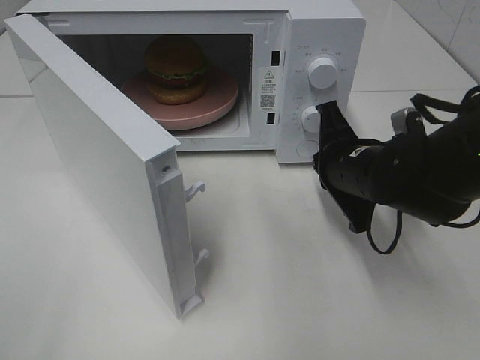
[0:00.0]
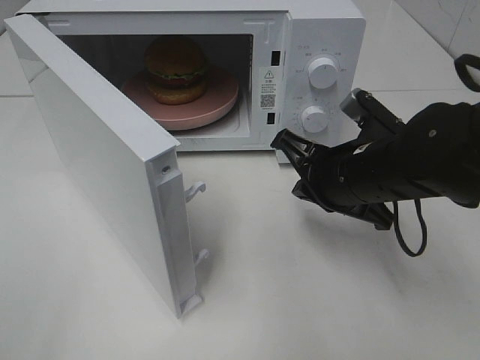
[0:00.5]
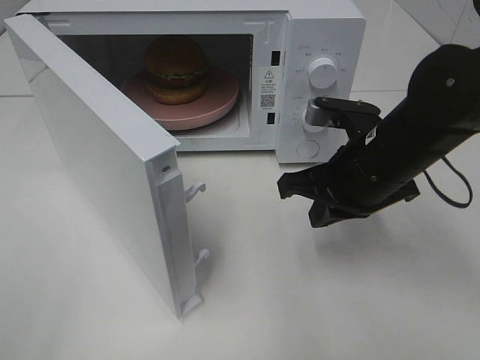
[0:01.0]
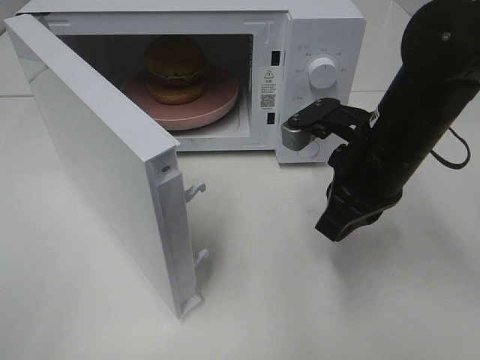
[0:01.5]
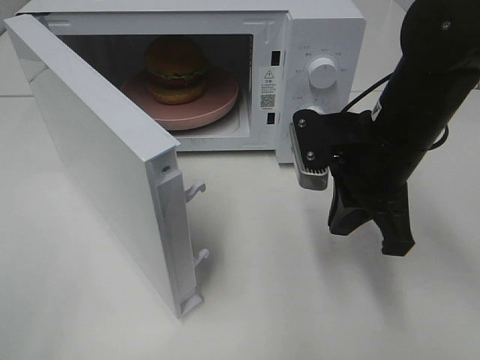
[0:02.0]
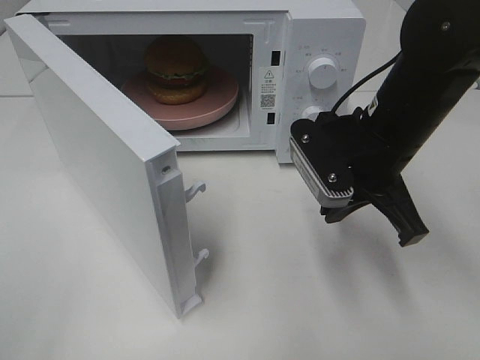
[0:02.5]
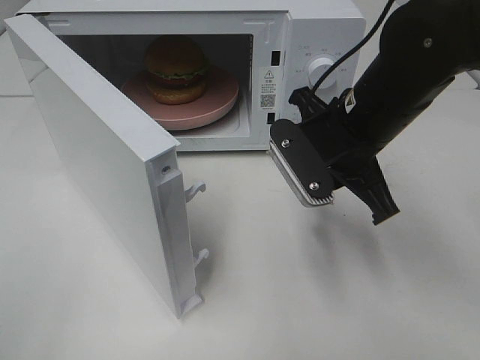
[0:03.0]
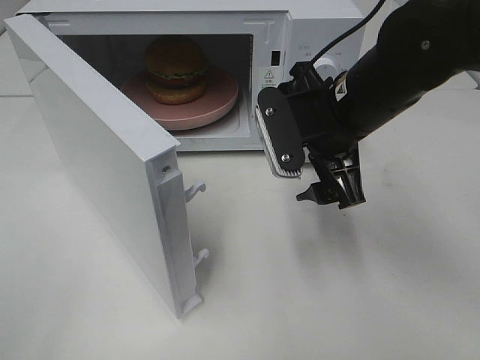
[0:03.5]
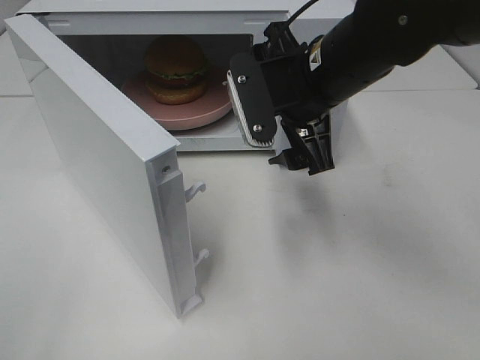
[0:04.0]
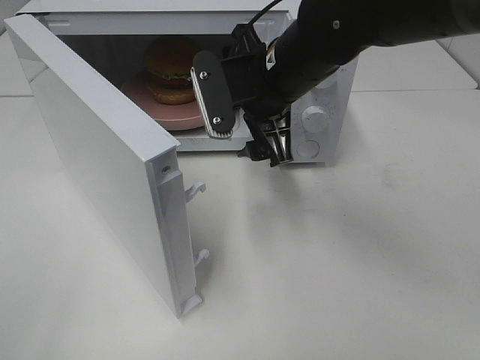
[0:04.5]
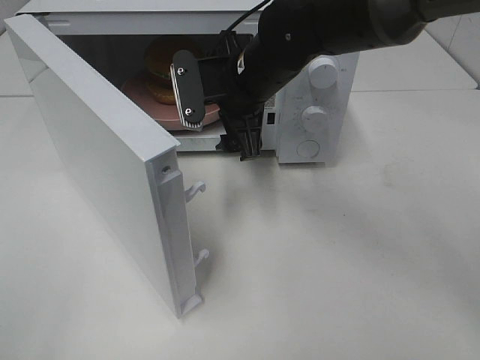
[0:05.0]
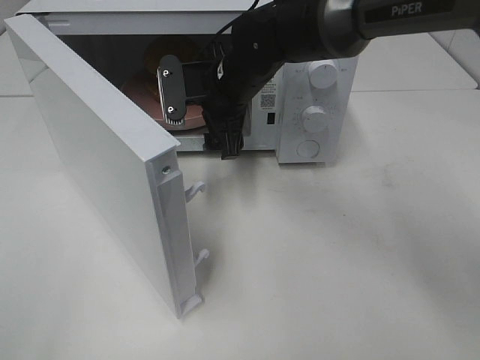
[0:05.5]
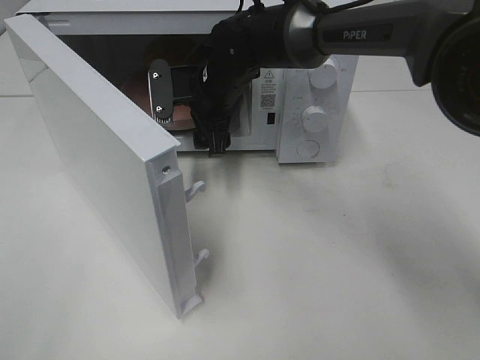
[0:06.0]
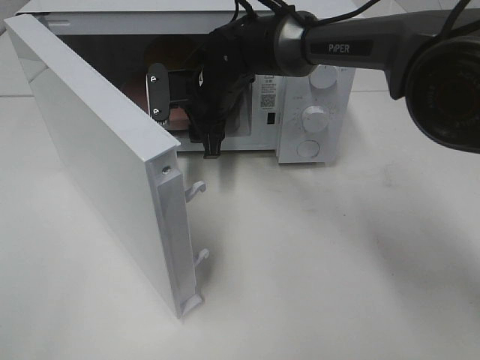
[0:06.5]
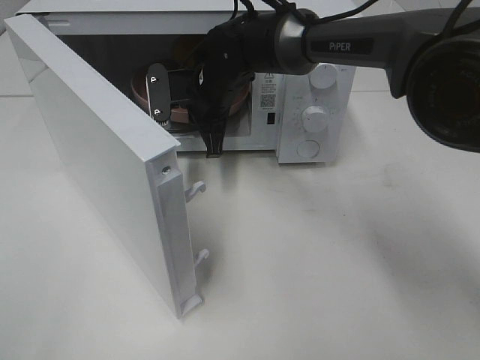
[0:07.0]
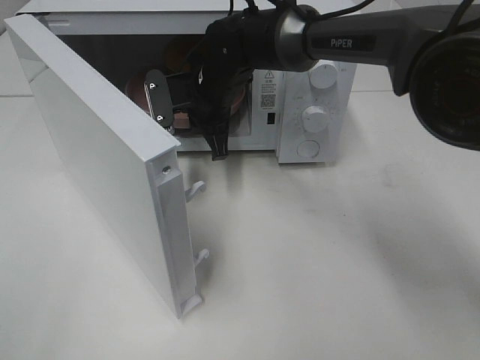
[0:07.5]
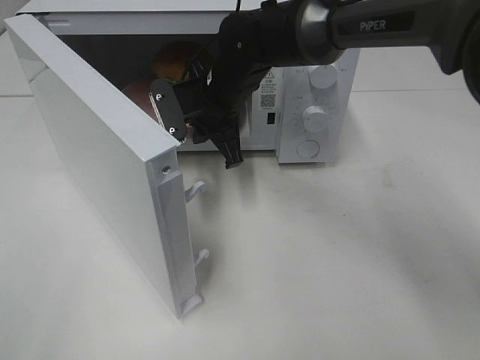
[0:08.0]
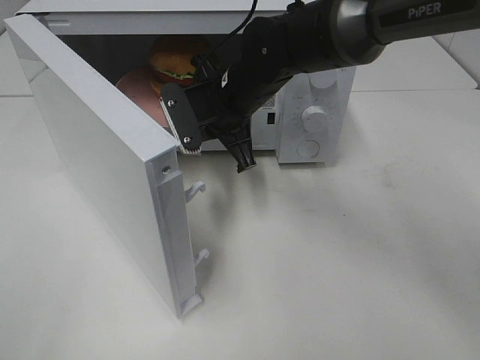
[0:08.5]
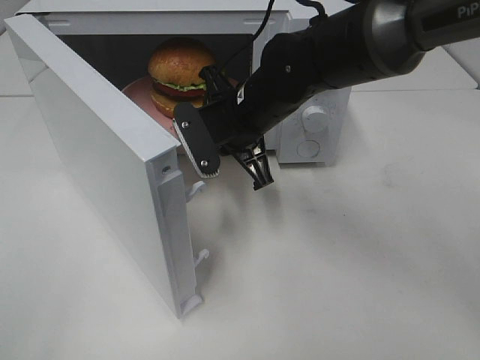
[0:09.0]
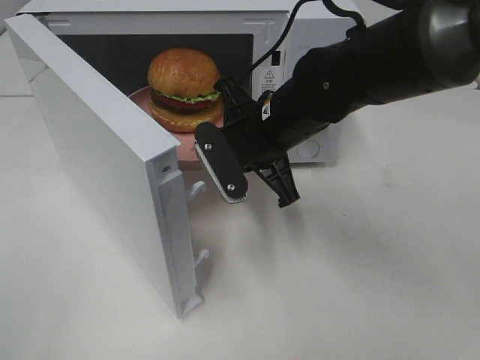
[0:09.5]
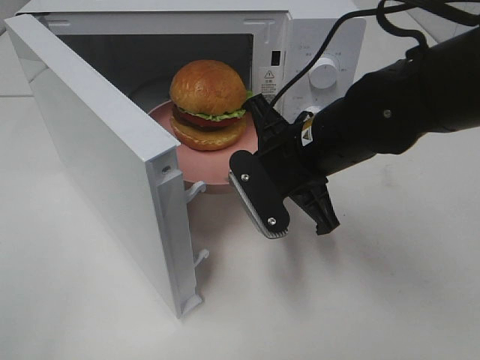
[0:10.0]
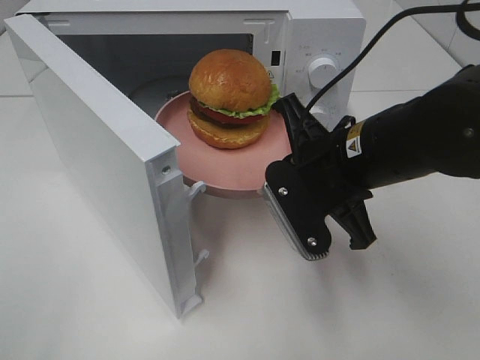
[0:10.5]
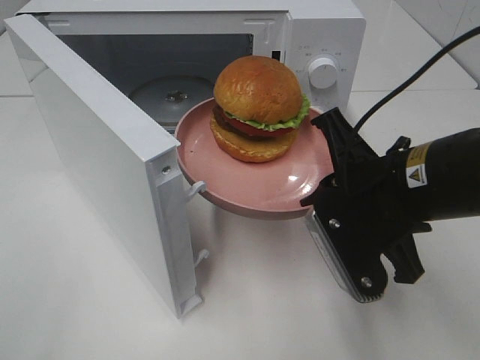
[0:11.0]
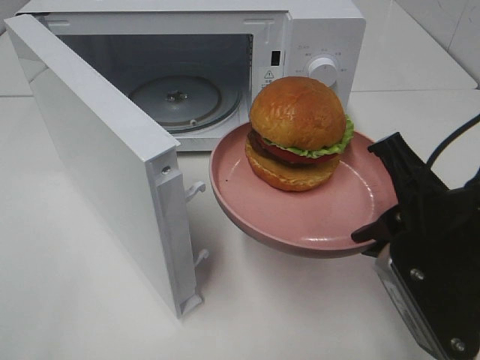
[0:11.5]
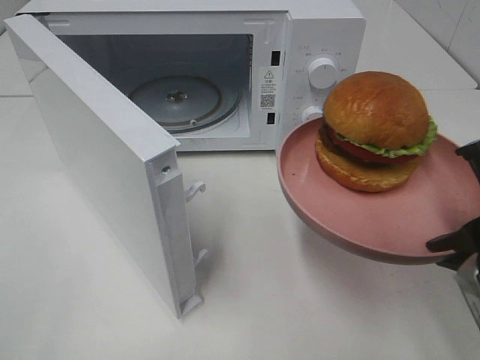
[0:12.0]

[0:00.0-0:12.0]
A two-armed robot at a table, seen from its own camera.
Task of the whole recording: Heat the burger.
Step, 0:00.0 to 0:06.5: Right hand: grab the plate with the hamburger.
0:00.0 to 0:02.0: The right gripper heads upward, covering roughly 5 cm.
0:02.0 to 0:04.0: The right gripper moves to the left, about 5 cm, and opens up.
0:04.0 to 0:06.0: The right gripper goes about 20 cm forward, to the left and downward.
0:06.0 to 0:08.0: The right gripper closes its fingers.
0:08.0 to 0:10.0: The right gripper moves backward and to the right, about 15 cm.
0:10.0 to 0:12.0: The right gripper shifts about 20 cm backward and to the right.

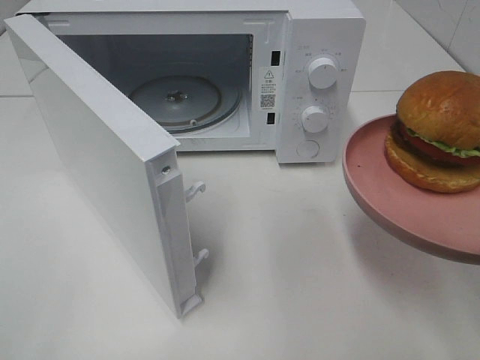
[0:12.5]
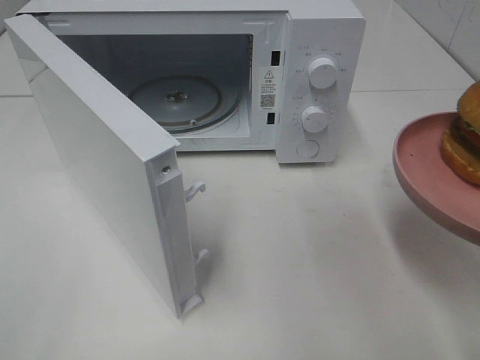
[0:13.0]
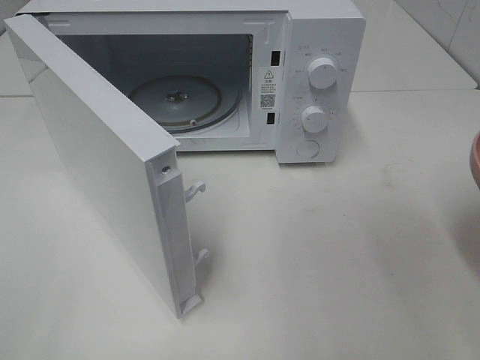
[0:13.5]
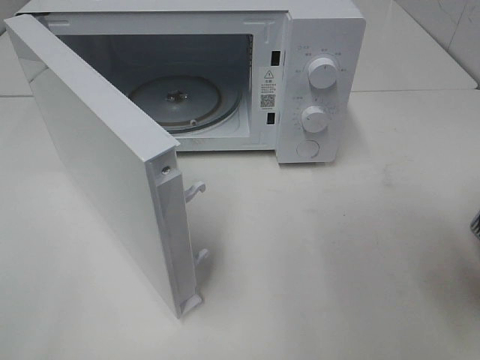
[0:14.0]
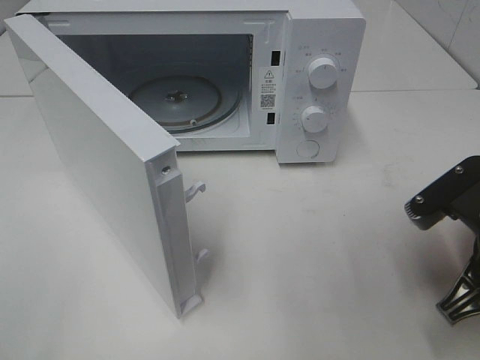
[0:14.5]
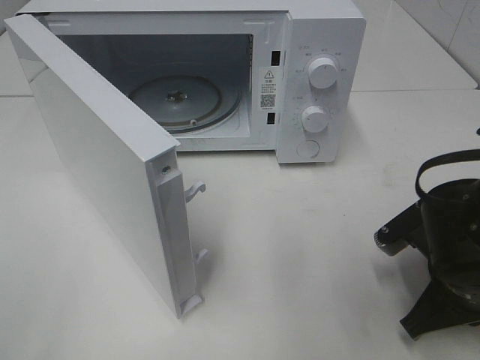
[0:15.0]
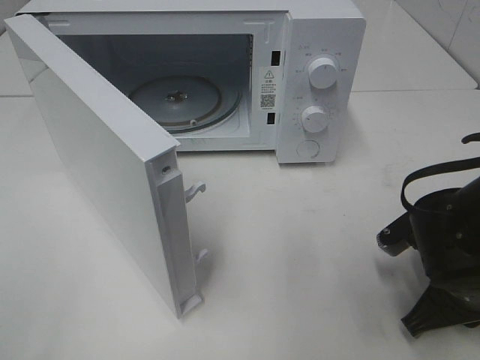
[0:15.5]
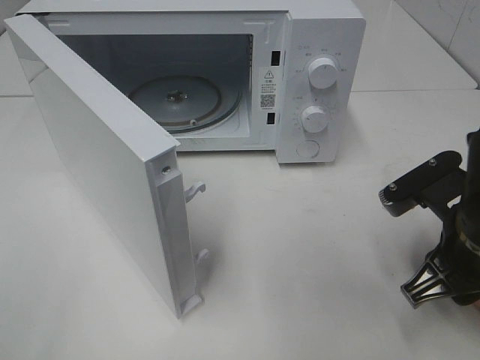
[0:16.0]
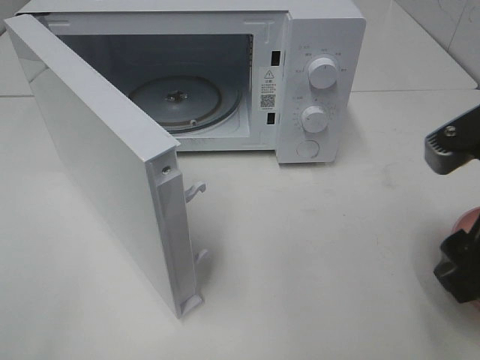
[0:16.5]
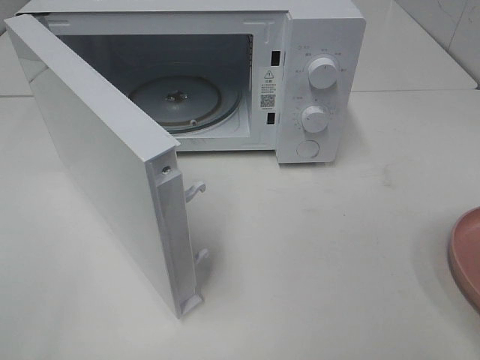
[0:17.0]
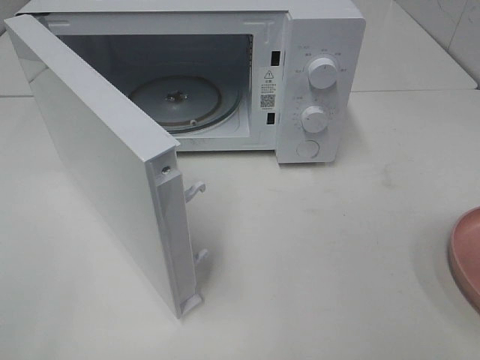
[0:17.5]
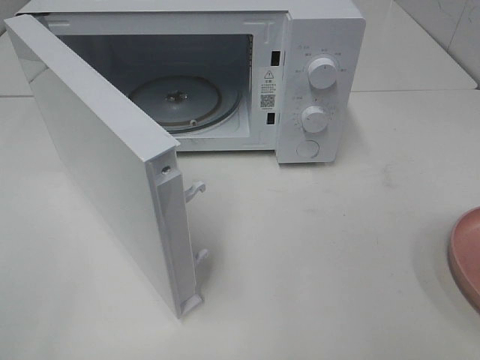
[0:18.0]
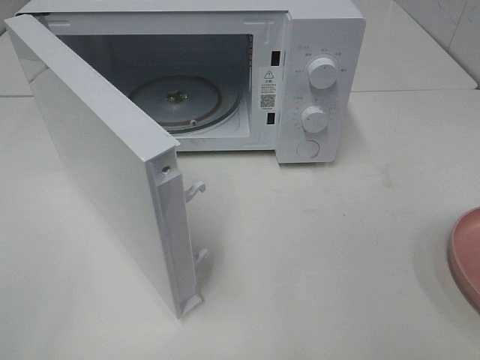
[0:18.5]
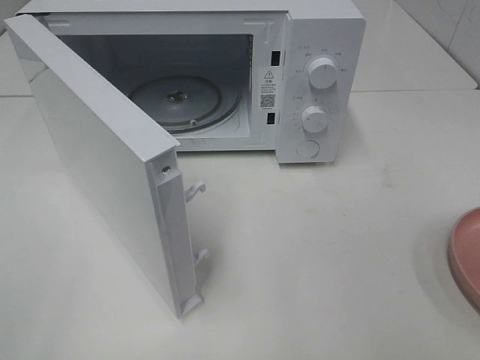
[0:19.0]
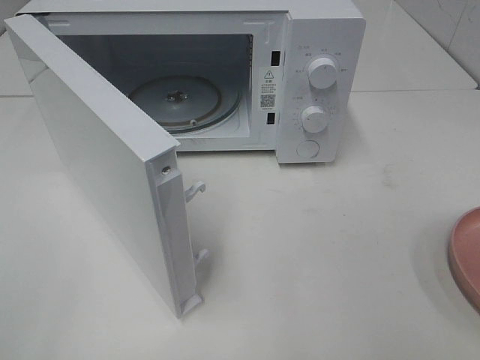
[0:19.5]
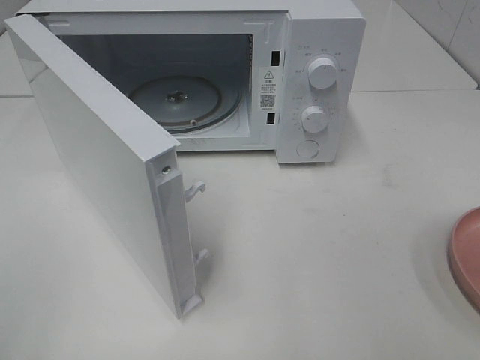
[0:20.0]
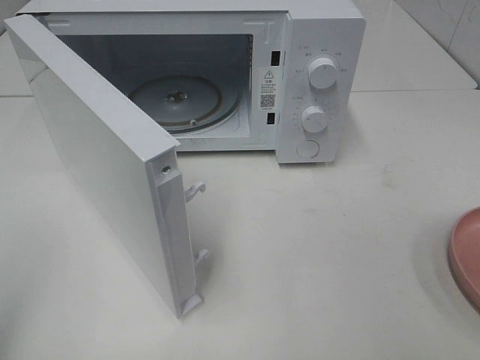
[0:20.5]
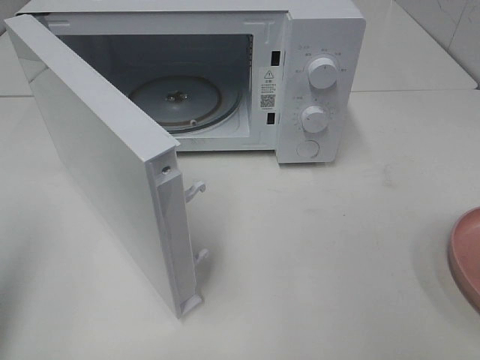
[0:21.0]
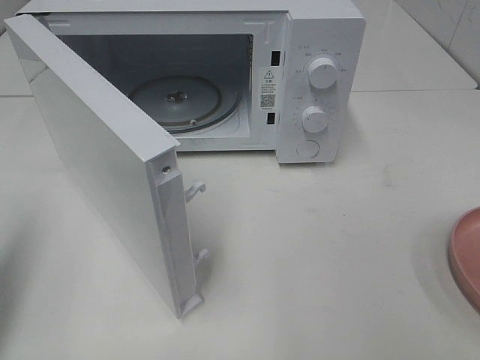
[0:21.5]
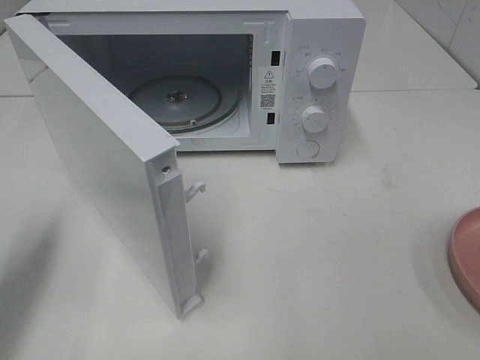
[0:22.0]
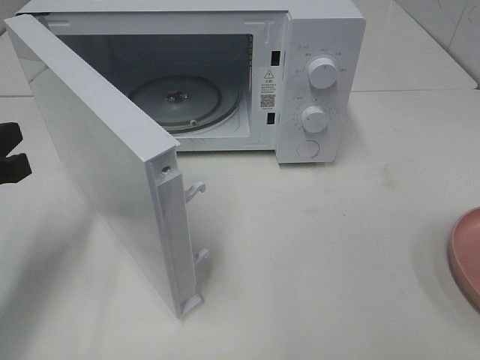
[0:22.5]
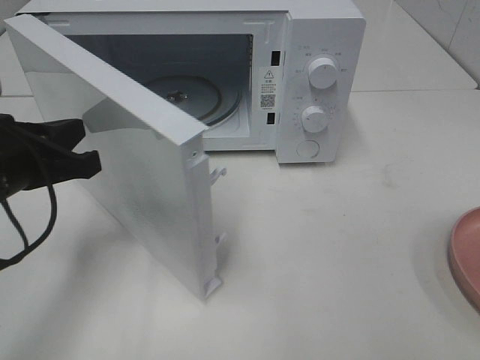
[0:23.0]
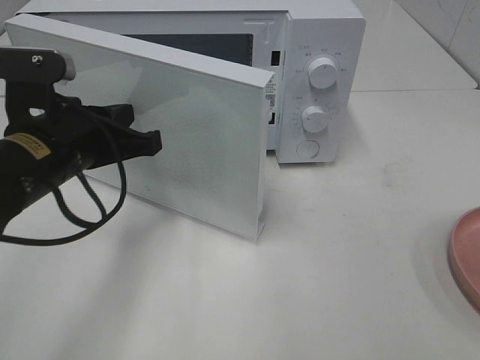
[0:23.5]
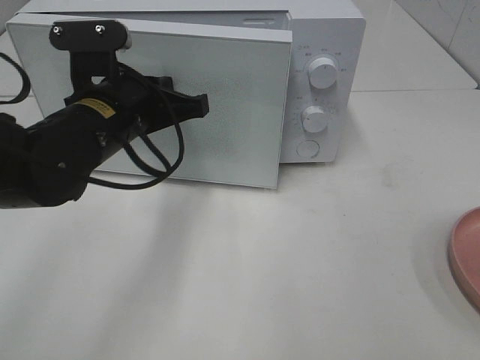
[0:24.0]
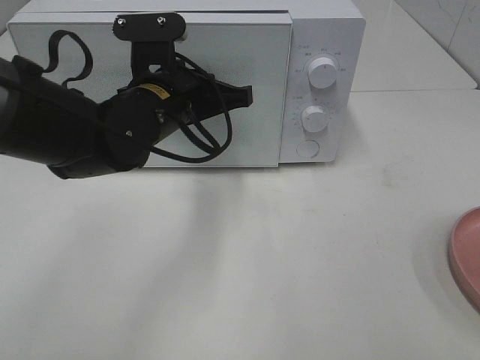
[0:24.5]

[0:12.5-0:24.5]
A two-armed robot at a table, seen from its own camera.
Task of the whole recording: Heat the burger.
Step, 0:12.5 to 0:15.5: Right hand: place the plate on the table.
0:12.5 to 0:14.5: The right gripper moves downward and forward, approximately 10 cm.
0:14.5 to 0:16.5: The right gripper heads upward, covering some 10 cm, and opens its fingers.
0:16.5 to 0:18.5: The right gripper travels backward and to the right by about 15 cm.
0:20.5 to 0:22.5: The left gripper travels forward and downward by about 20 cm.
0:22.5 to 0:24.5: The left gripper heads to the right and forward, covering roughly 25 cm.

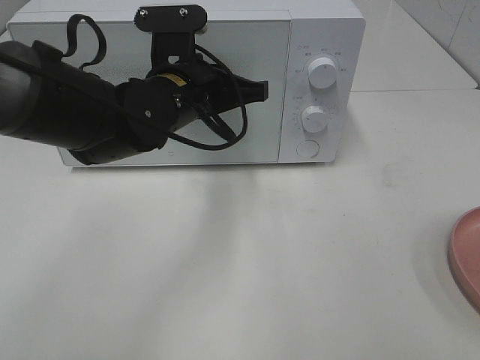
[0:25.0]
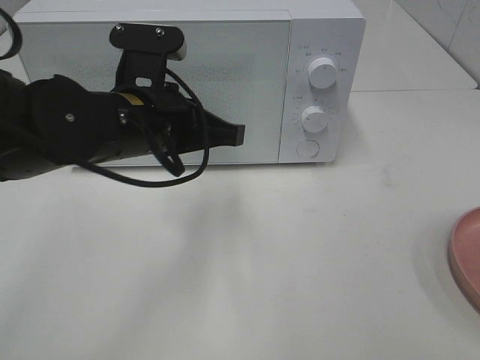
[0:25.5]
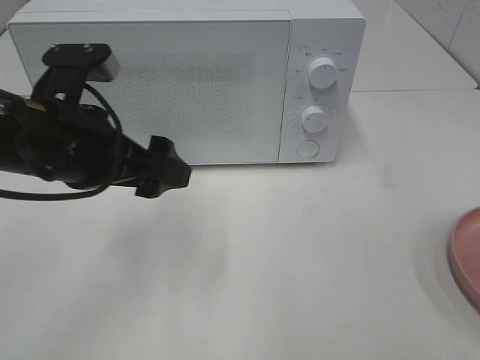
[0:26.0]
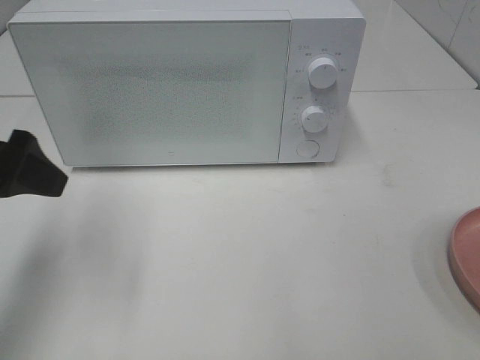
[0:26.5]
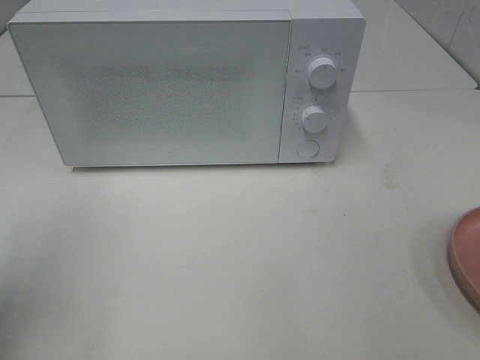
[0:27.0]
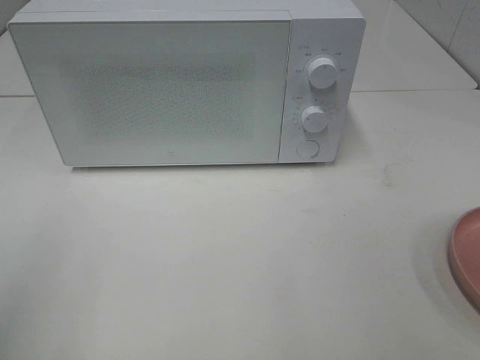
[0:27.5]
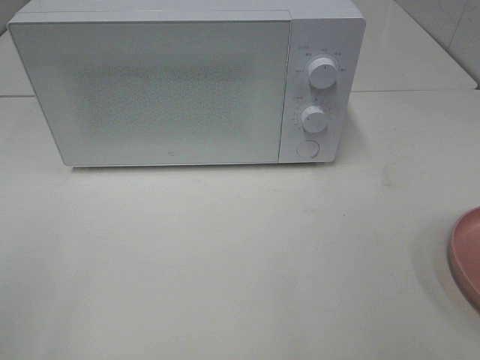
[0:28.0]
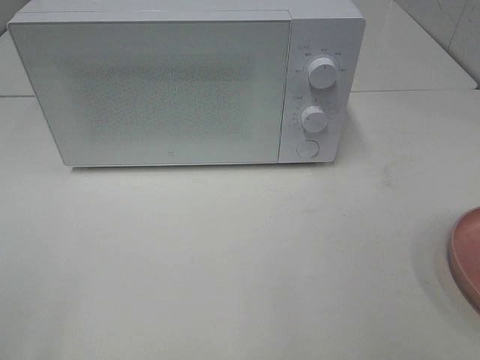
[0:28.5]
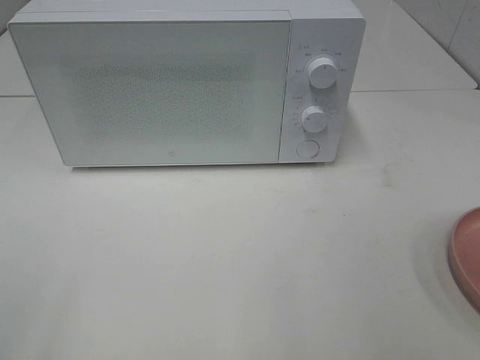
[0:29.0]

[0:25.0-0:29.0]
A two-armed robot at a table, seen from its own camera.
Task of the whole recording: Heat the burger.
0:25.0 to 0:27.0: The left gripper shifts approximately 30 cm to the left, backward and upward, and opens its fingers.
0:27.0 to 0:29.0: The left gripper heads backward, covering some 15 cm.
